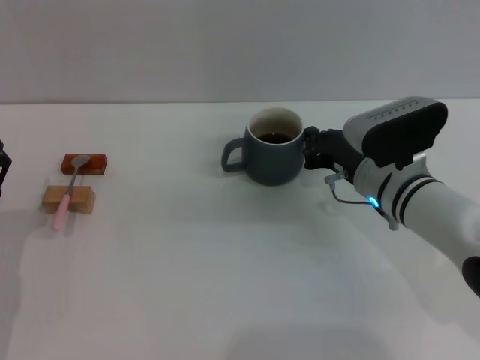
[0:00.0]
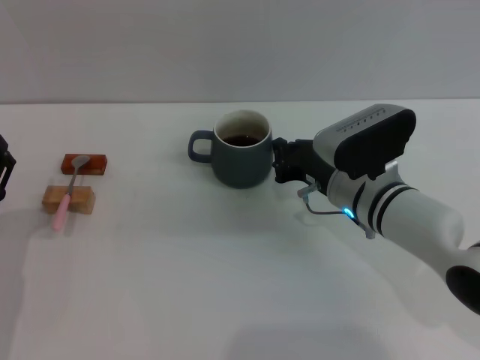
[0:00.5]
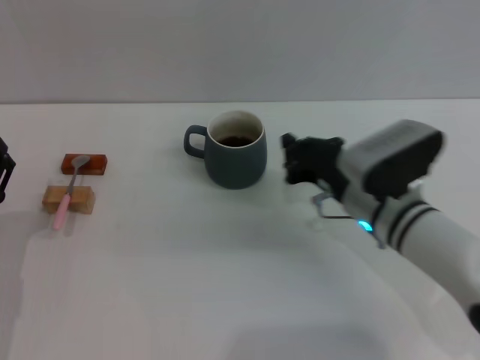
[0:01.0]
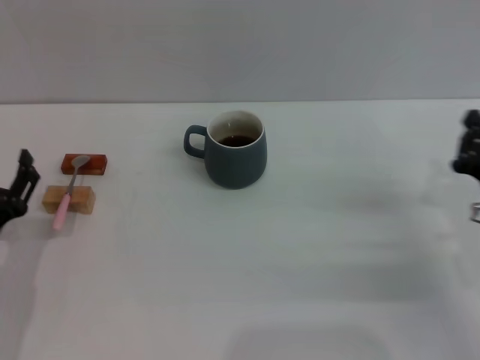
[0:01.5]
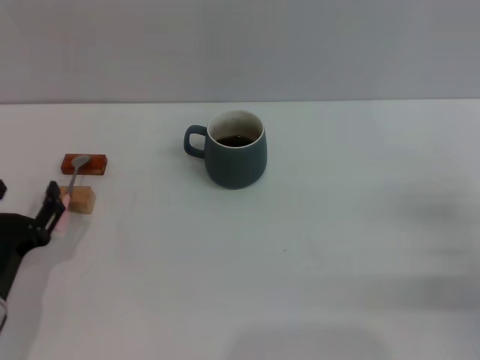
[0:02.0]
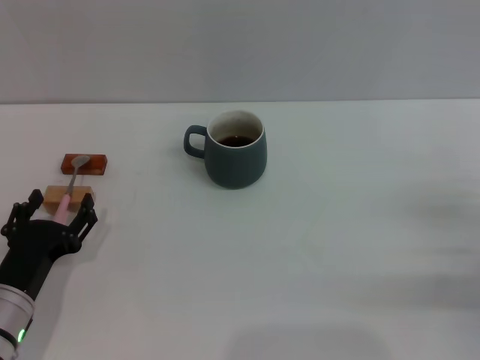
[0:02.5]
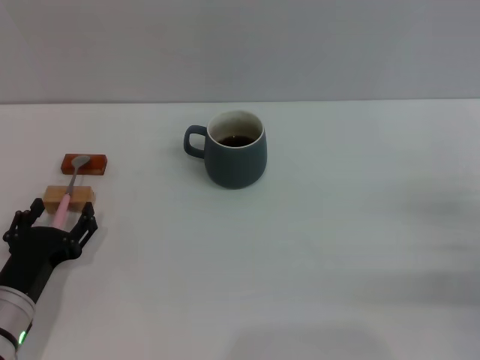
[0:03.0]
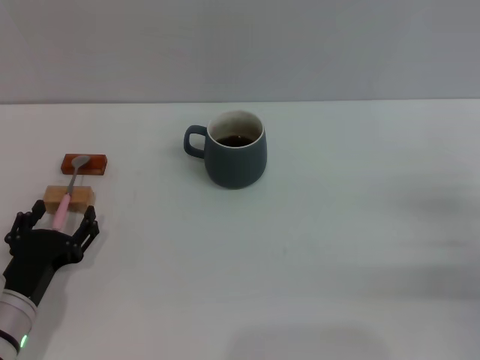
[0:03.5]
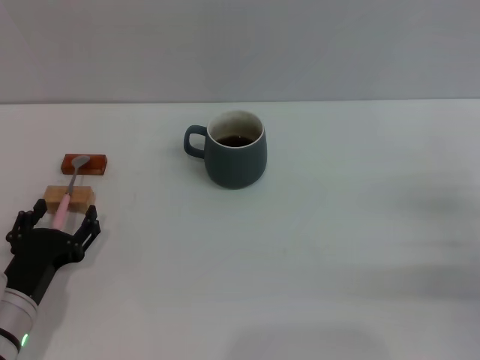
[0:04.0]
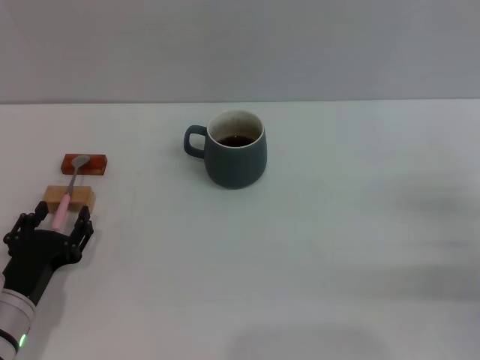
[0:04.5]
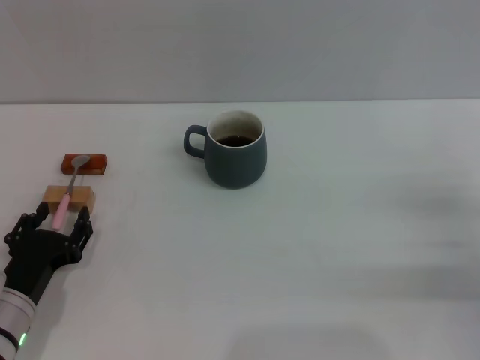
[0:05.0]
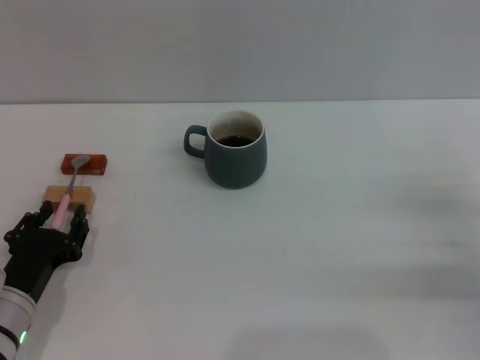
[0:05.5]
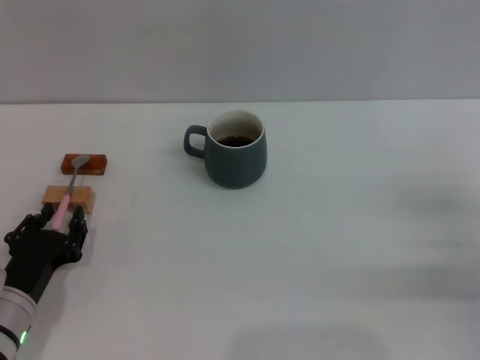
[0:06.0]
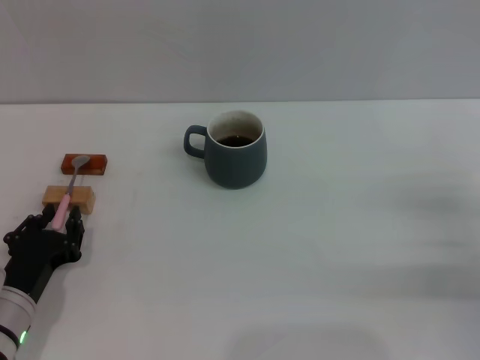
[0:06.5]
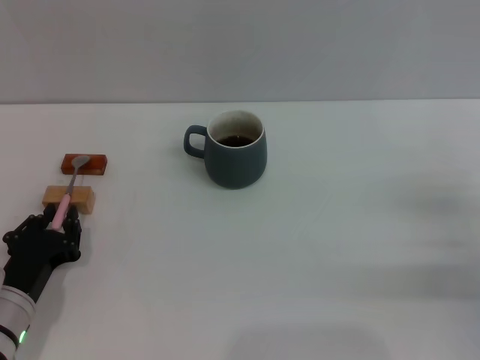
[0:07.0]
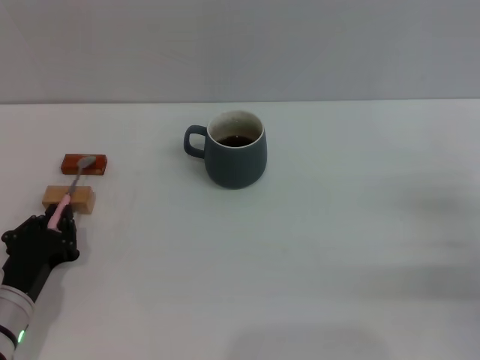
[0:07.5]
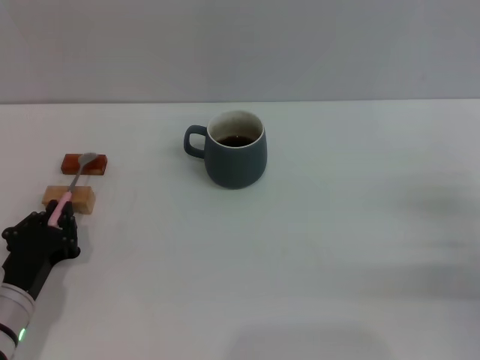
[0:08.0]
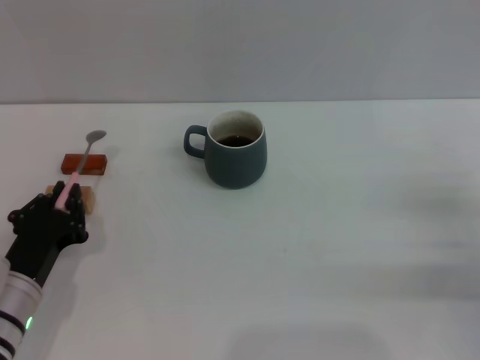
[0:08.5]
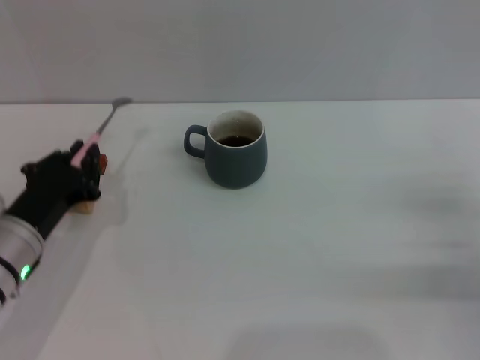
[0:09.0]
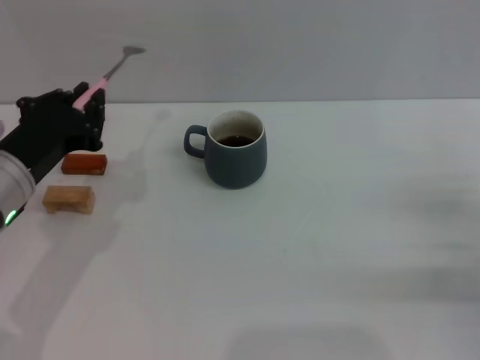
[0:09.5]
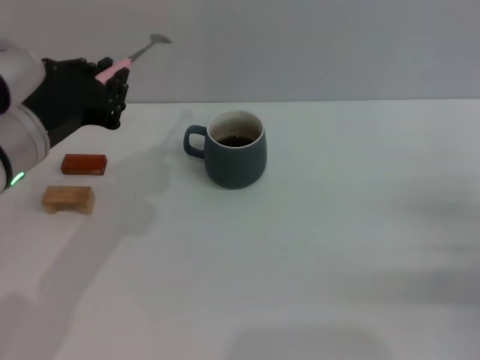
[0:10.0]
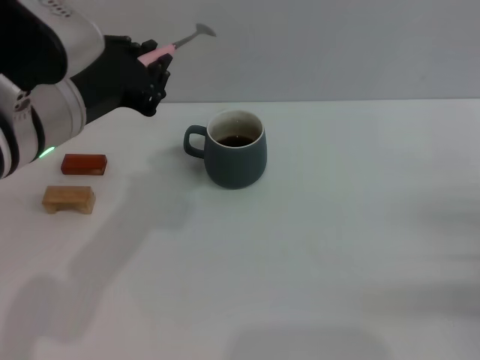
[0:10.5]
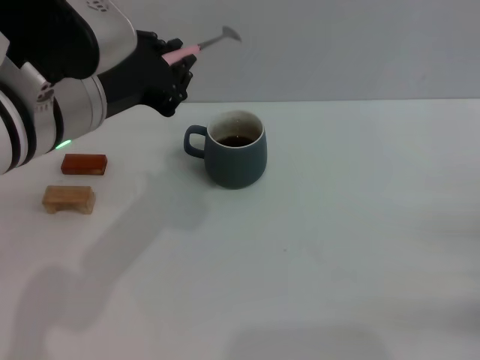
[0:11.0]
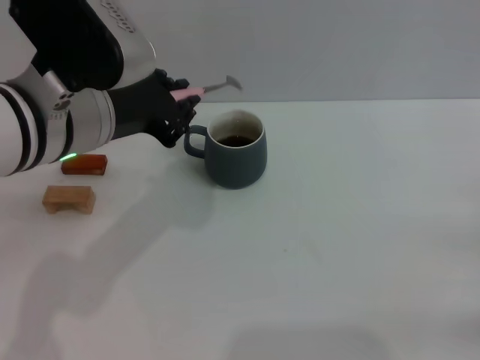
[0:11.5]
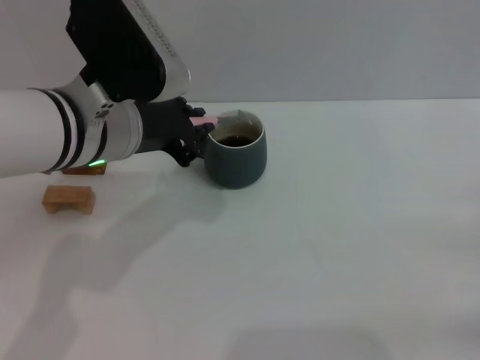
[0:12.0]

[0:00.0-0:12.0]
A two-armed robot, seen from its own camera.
Task of the whole recording: Move the grey cup to the center, lift the pink spoon, stir it three times in the cup, and put the spoon into the cup.
Step, 0:00.0 to 0:08.5: Pick up the spoon with the left gripper.
0:00.0 to 0:02.0: The right gripper travels to the right and backward by roughly 20 cm.
0:02.0 to 0:04.0: The grippers make only small movements.
0:04.0 to 0:06.0: The left gripper closes up.
0:06.0 to 0:08.0: The left gripper closes.
0:08.0 to 0:10.0: The left gripper travels upward by some 20 cm.
0:10.0 to 0:12.0: The right gripper travels backward by some 5 cm. The left gripper heads to the right, covering some 5 cm.

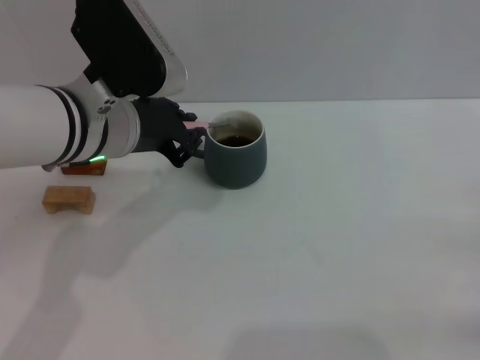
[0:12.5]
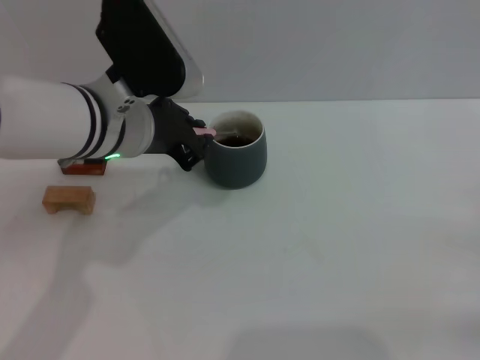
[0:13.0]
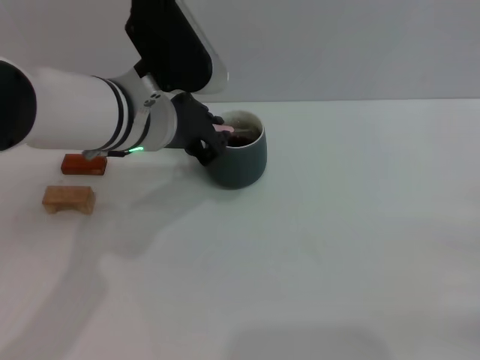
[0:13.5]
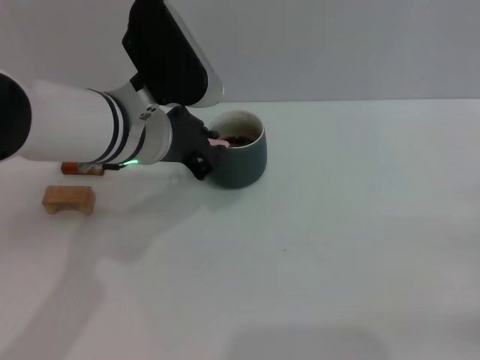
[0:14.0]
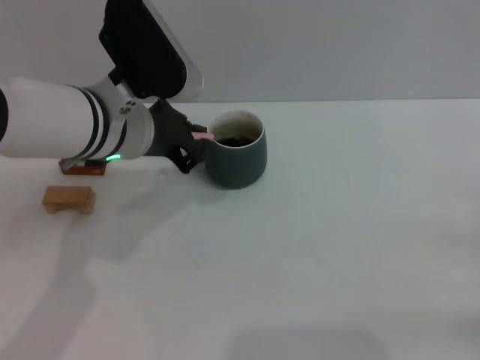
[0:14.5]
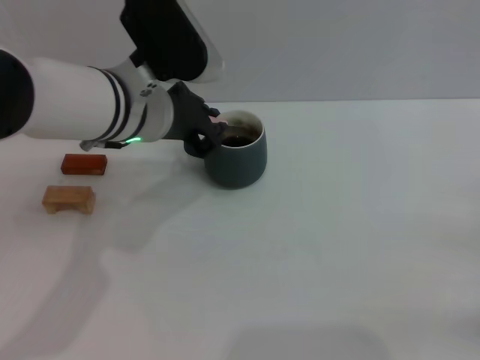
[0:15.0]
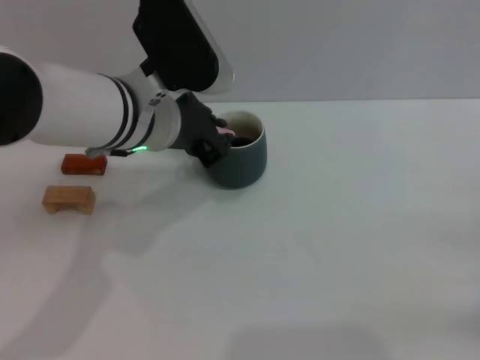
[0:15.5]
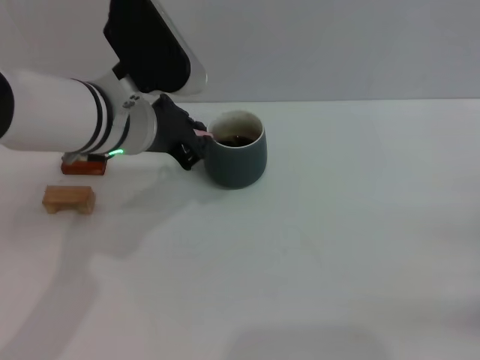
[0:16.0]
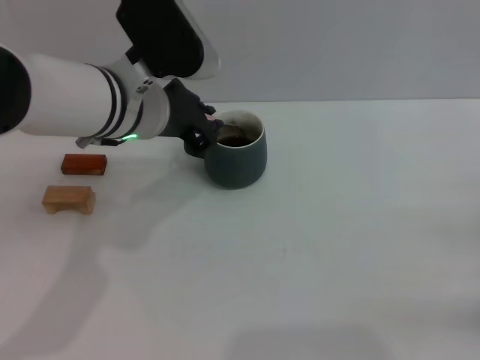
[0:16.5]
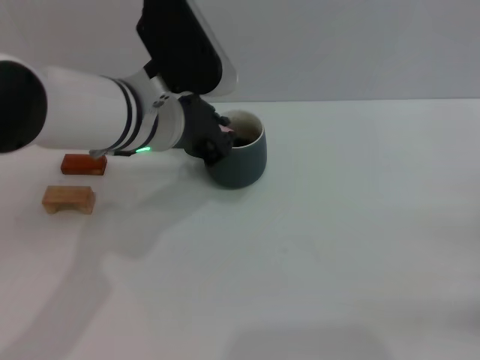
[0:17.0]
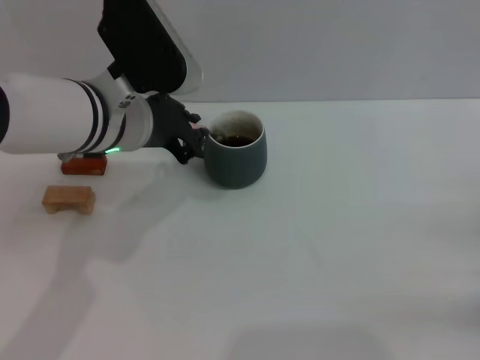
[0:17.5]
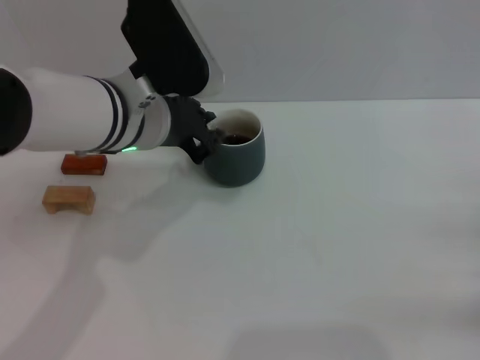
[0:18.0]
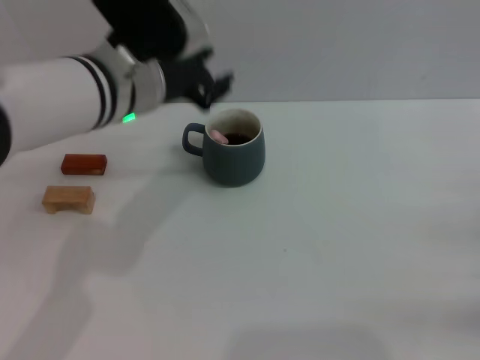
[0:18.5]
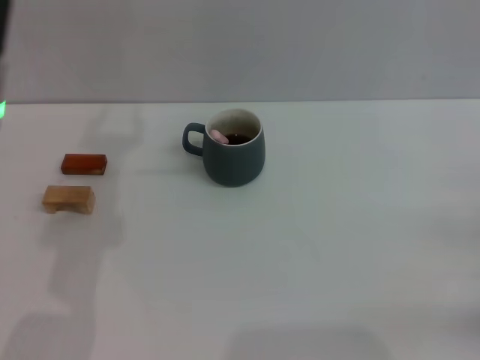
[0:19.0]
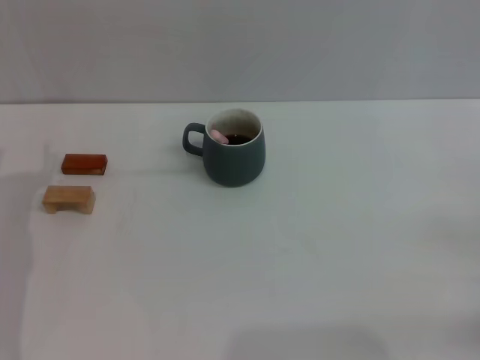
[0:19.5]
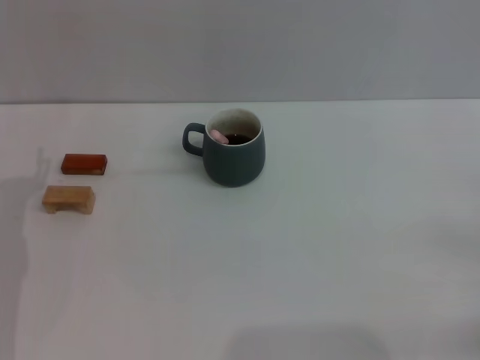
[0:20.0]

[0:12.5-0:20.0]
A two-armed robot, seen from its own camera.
Task of the whole recording: Move the grey cup to the center, lift the pink spoon, stir it three times in the cup, and put the spoon into the cup.
Step, 0:12.5 to 0:18.0: Stir the coffee in the cup with the left gripper.
0:12.5 to 0:18.0: There are only small adjustments of the grippers.
0:18.0 to 0:20.0: The left gripper heads to the left, downward and backward, covering roughly 25 cm, and opens its fingers.
